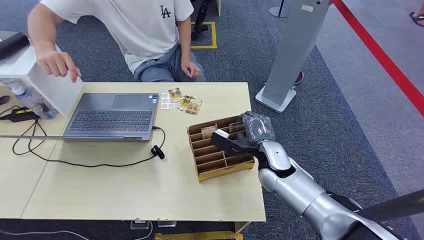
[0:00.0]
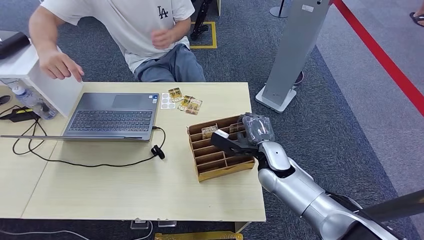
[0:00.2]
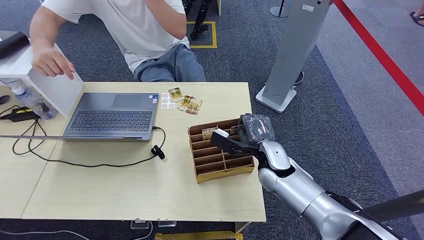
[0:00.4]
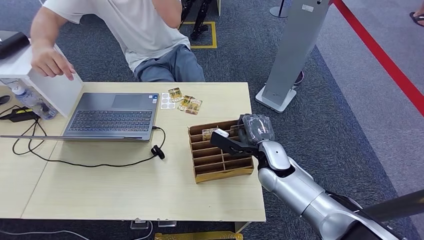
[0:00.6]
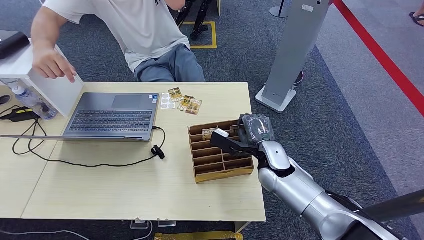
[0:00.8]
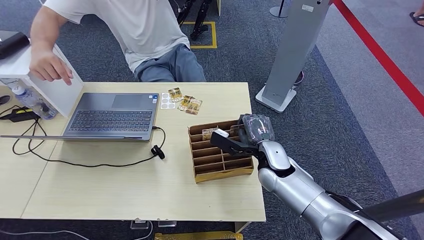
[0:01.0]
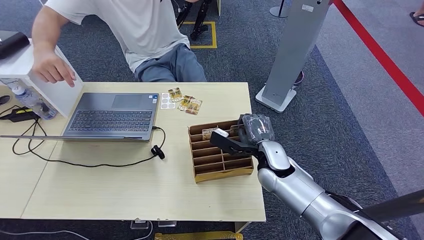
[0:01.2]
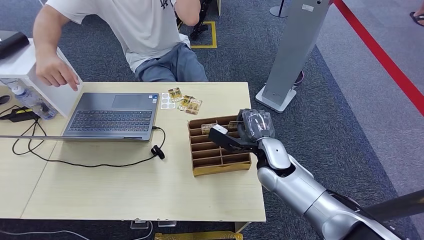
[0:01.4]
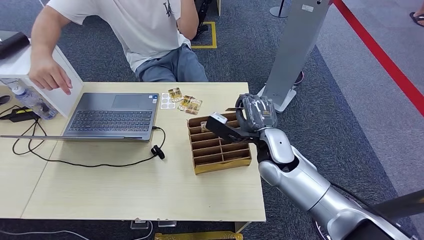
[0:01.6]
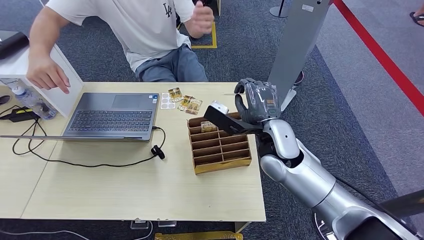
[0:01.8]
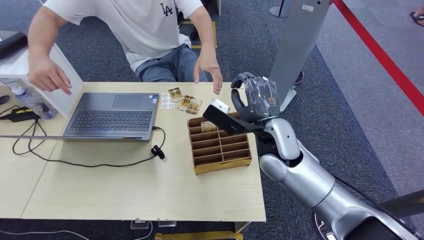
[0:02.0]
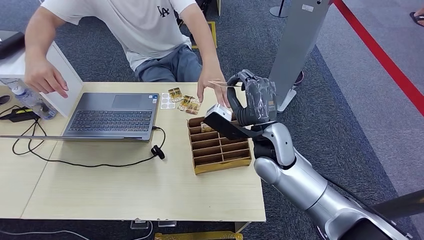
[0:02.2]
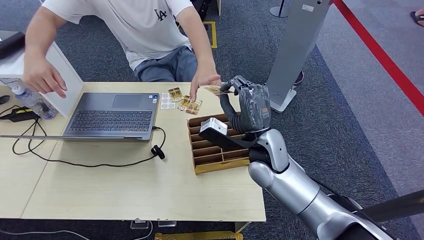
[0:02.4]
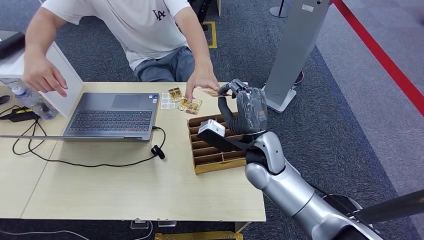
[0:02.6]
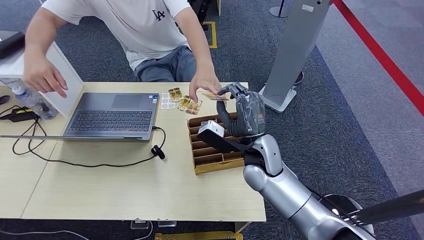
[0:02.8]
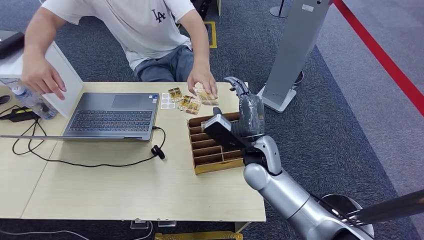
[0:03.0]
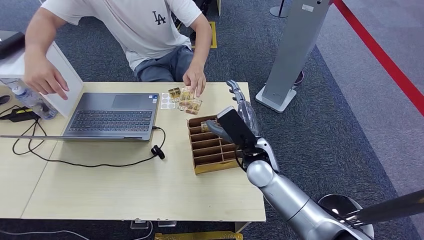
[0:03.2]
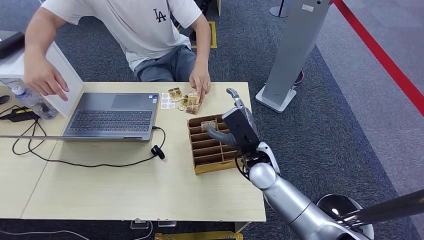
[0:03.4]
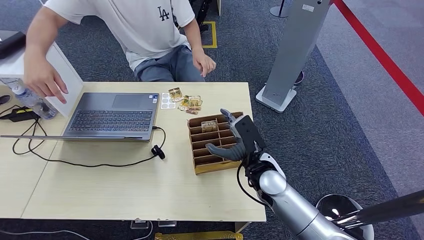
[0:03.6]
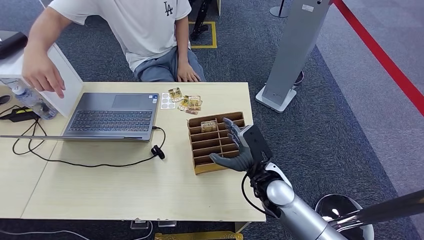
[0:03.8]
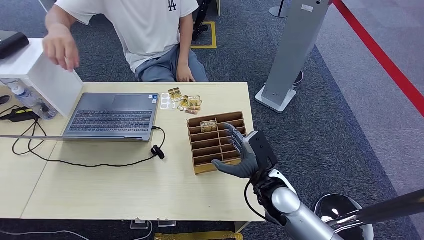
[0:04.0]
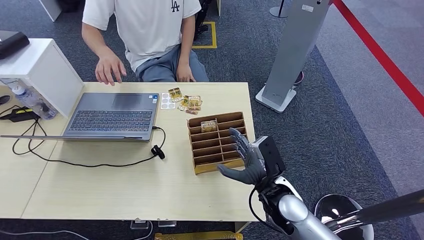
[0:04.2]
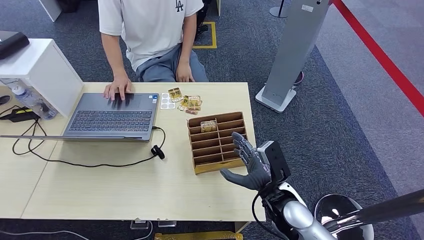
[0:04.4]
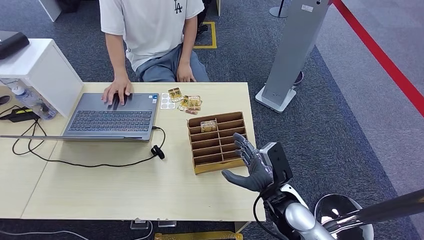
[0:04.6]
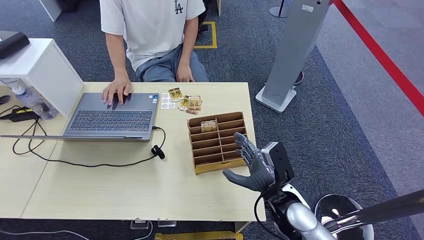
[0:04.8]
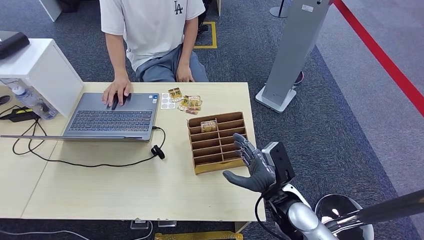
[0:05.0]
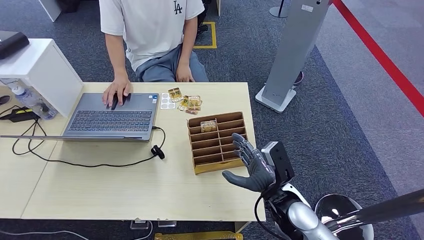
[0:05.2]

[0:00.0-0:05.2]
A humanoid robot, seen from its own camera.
Step, 0:00.0 to 0:01.4: Pick up the key card from the card box.
Step, 0:01.6 to 0:05.2: Hand the key card to the target.
0:01.8 to 0:03.4: The right hand moves downward, roughly 10 cm.
0:03.4 to 0:05.2: The right hand travels backward and to the right by some 10 cm.
